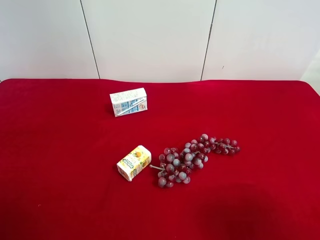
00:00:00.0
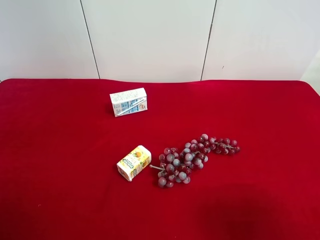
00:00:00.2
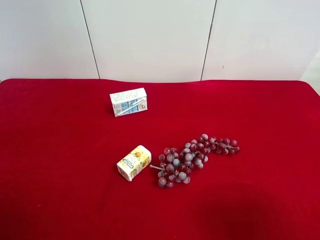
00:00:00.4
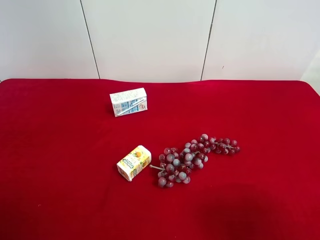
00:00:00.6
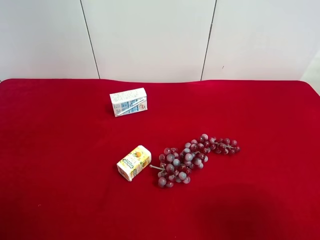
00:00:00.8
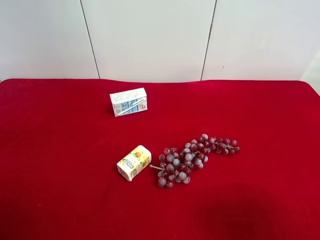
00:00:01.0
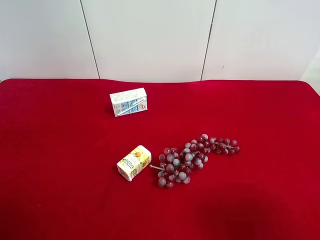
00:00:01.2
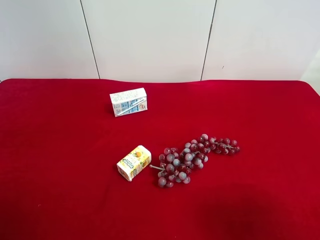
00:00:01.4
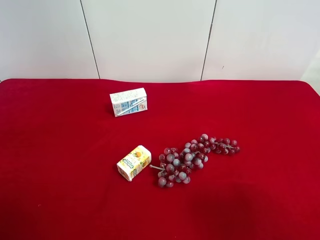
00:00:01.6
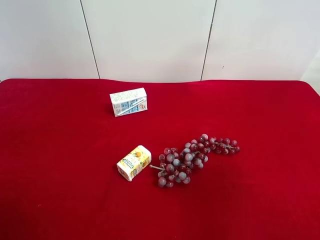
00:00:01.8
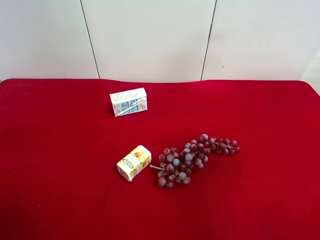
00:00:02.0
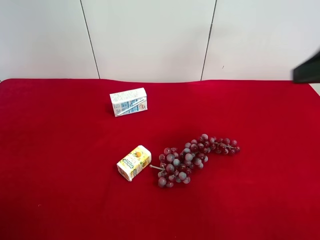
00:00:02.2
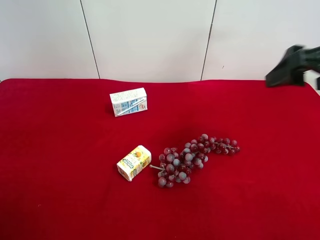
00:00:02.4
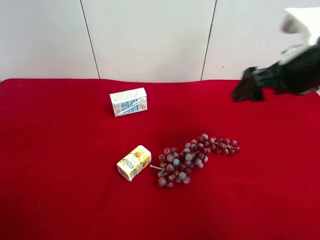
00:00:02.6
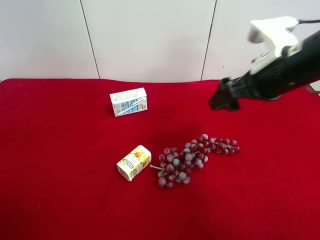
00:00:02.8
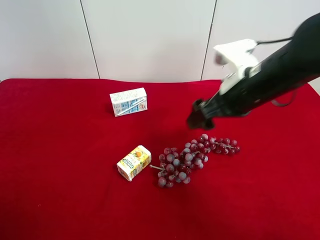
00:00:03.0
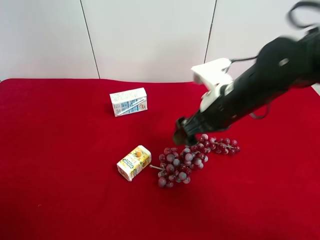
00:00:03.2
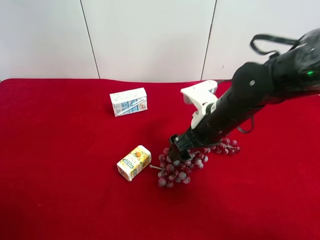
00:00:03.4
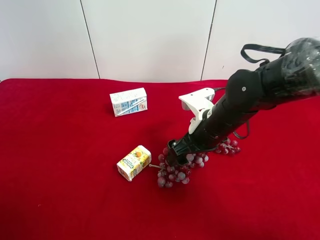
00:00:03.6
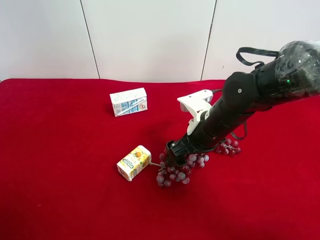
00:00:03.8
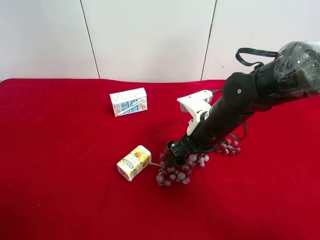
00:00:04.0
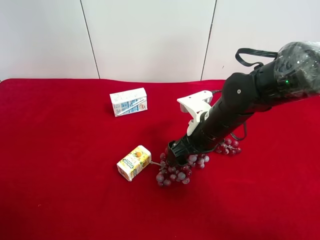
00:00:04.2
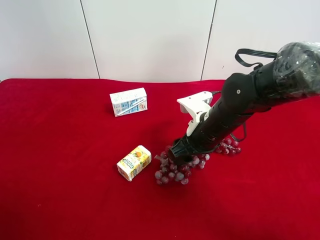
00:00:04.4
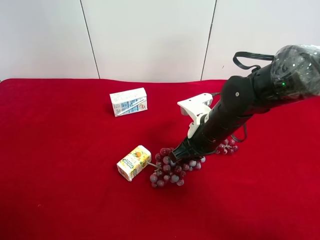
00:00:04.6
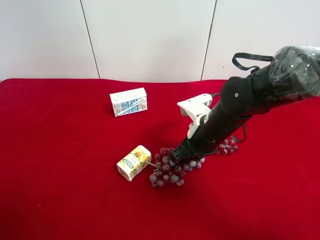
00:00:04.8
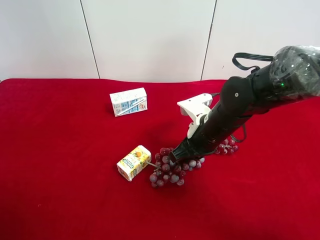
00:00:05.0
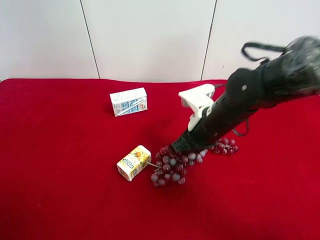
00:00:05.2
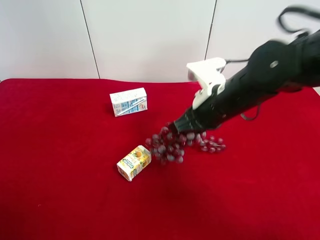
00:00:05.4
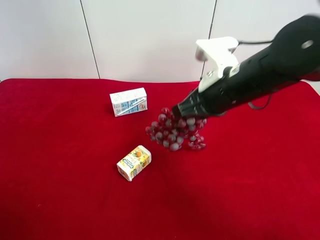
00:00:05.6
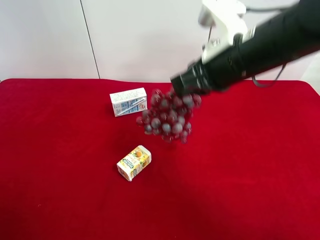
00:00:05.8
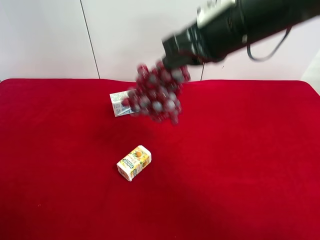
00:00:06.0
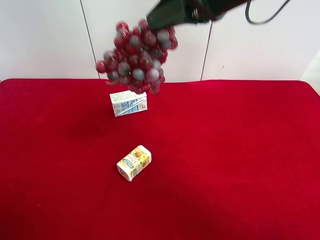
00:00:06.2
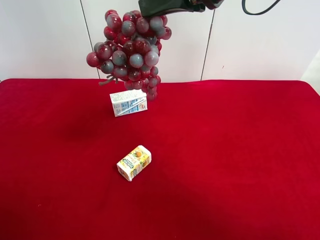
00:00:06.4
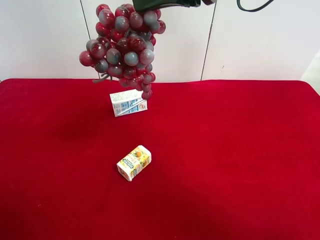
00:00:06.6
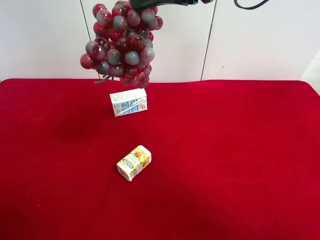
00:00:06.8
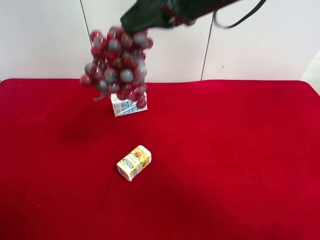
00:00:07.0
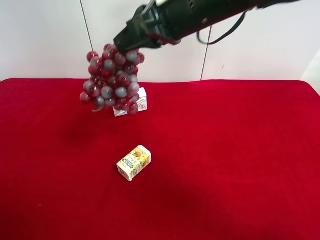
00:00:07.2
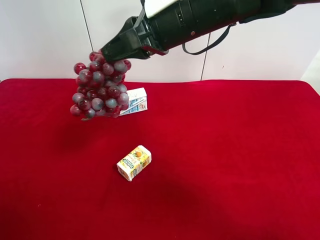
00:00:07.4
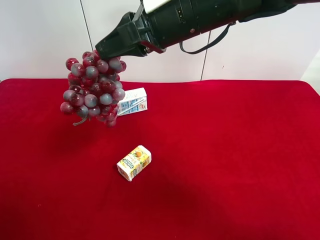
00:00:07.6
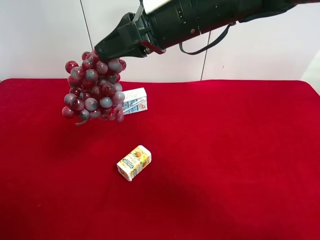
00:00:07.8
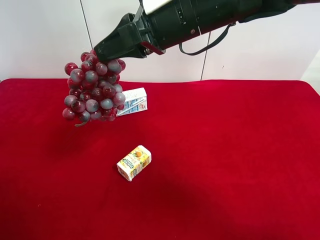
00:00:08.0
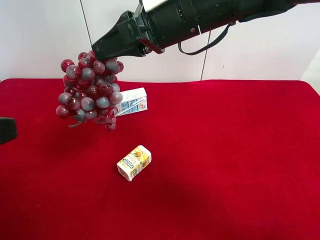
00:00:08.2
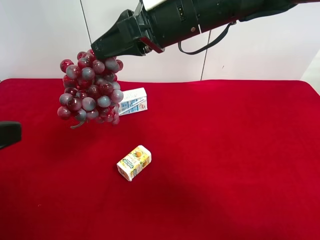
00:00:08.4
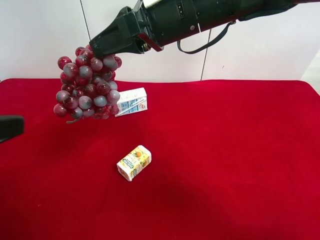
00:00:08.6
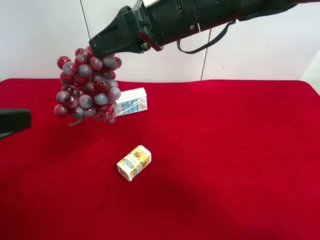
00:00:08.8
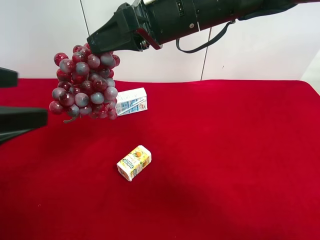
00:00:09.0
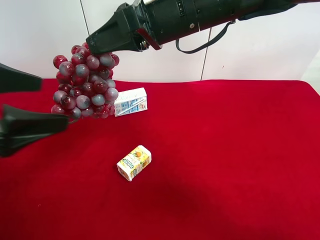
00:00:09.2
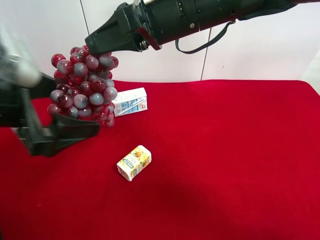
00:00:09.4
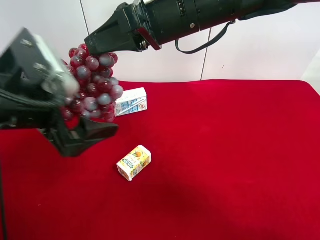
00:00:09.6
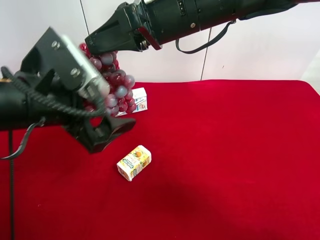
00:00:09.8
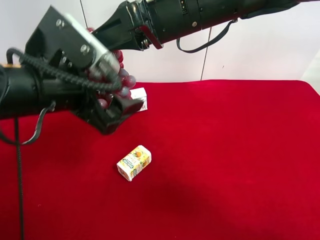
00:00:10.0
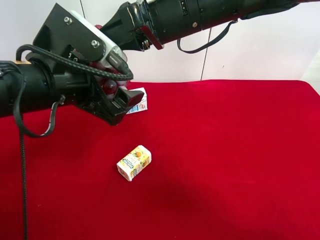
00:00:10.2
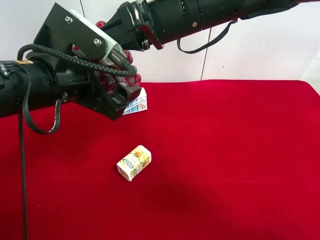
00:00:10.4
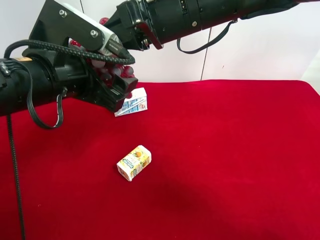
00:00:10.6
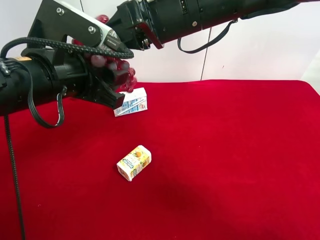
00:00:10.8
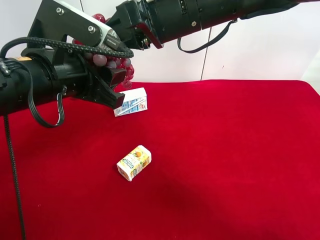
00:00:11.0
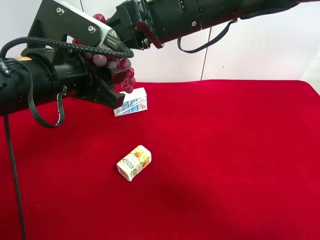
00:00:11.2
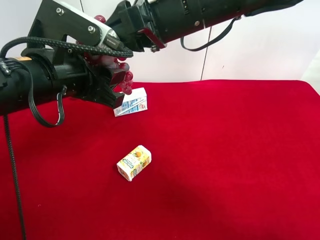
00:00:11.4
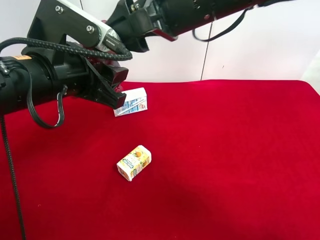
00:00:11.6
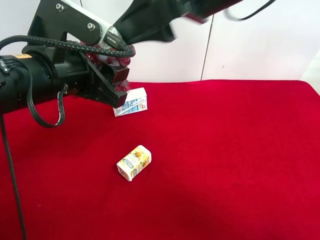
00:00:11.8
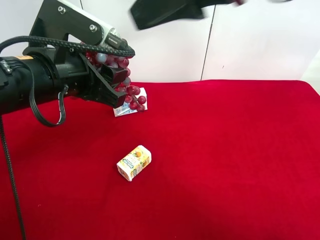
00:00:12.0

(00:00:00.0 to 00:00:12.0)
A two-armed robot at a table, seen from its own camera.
Task of the whole recording: use the right gripper to pick up the item and transfer it from the right gripper to the left gripper.
00:00:01.6 - 00:00:03.0: The right gripper moves forward and to the left, roughly 30 cm.
00:00:03.0 - 00:00:04.4: The right gripper heads downward, covering roughly 10 cm, and closes its fingers.
00:00:04.4 - 00:00:06.0: The right gripper moves upward, some 20 cm, and closes.
00:00:06.0 - 00:00:07.6: The right gripper goes roughly 5 cm to the left.
00:00:07.6 - 00:00:09.0: The left gripper travels forward and to the right by about 15 cm.
00:00:09.0 - 00:00:10.4: The left gripper shifts roughly 15 cm to the right and forward.
00:00:10.4 - 00:00:12.0: The left gripper closes its fingers. Meanwhile the right gripper travels upward, to the right and backward by roughly 15 cm, and opens.

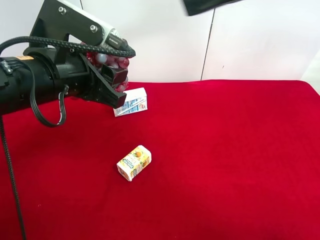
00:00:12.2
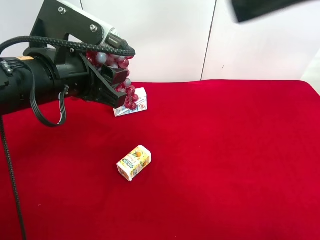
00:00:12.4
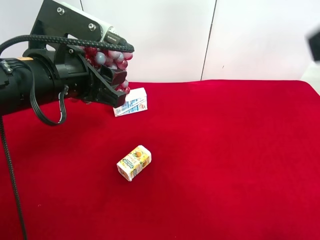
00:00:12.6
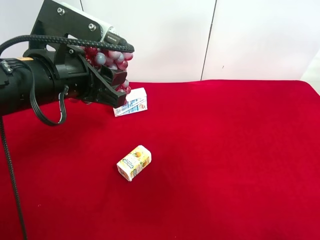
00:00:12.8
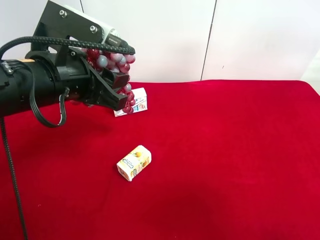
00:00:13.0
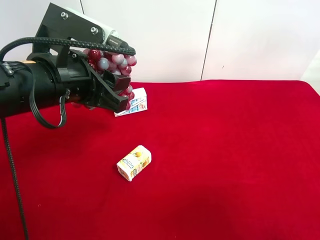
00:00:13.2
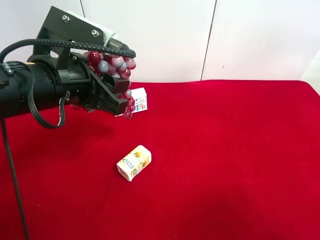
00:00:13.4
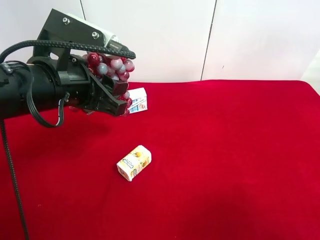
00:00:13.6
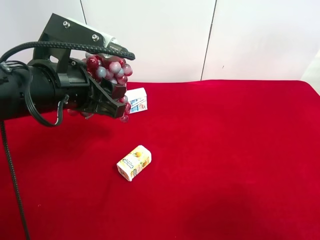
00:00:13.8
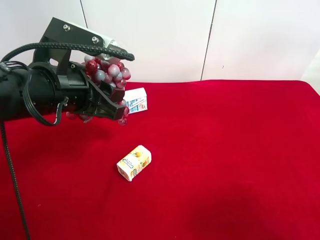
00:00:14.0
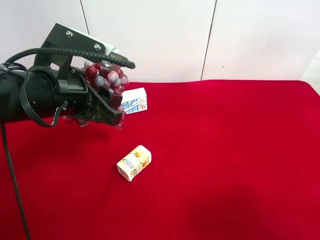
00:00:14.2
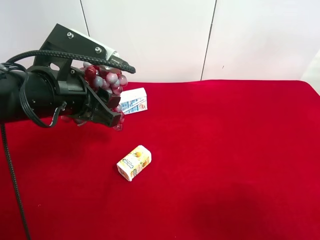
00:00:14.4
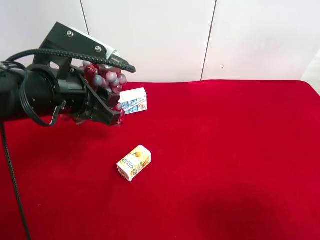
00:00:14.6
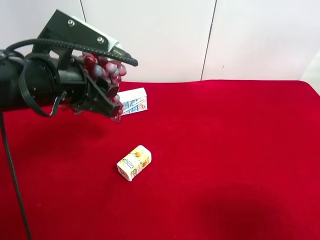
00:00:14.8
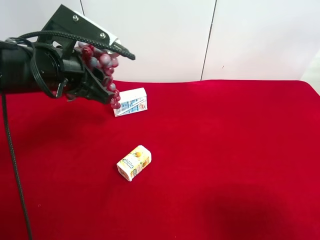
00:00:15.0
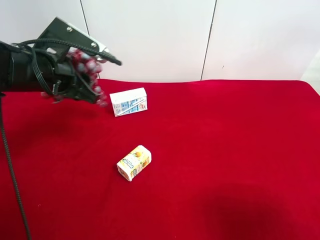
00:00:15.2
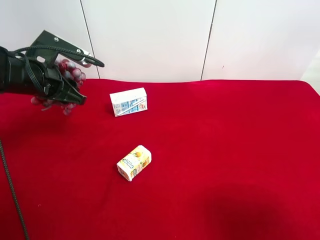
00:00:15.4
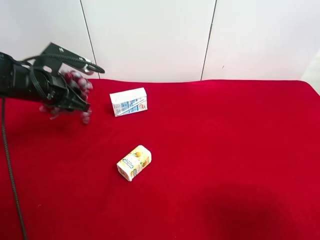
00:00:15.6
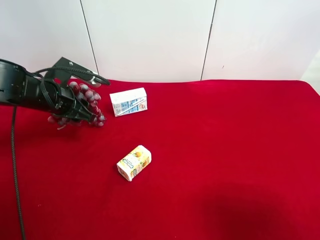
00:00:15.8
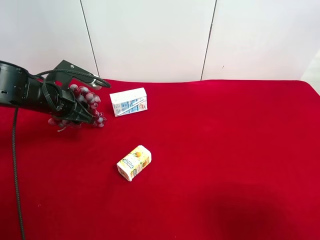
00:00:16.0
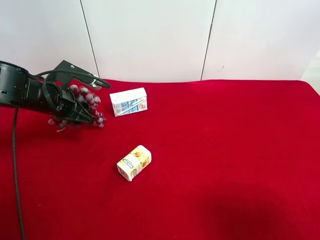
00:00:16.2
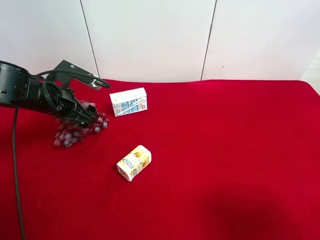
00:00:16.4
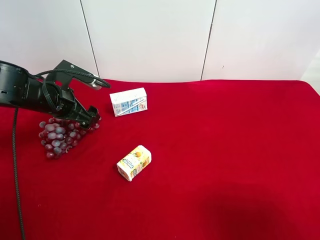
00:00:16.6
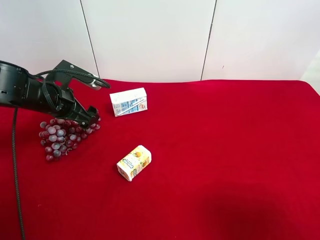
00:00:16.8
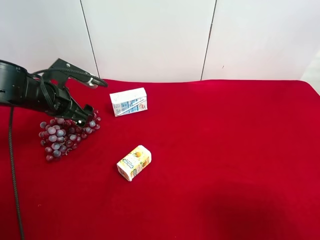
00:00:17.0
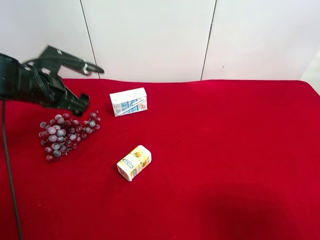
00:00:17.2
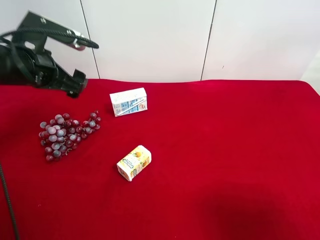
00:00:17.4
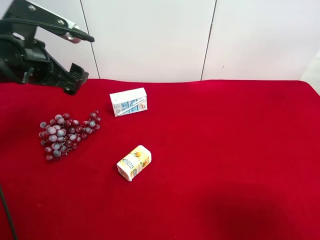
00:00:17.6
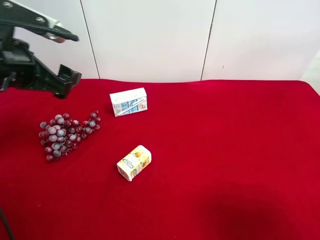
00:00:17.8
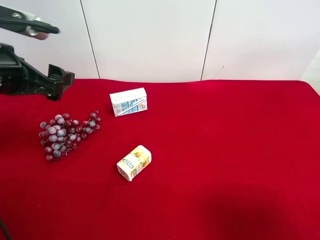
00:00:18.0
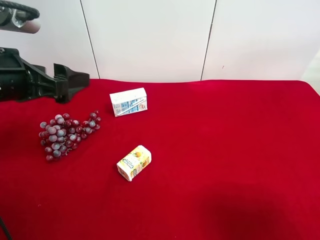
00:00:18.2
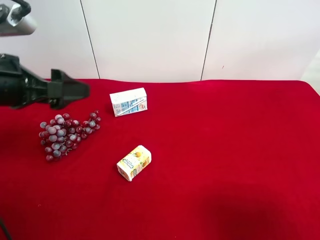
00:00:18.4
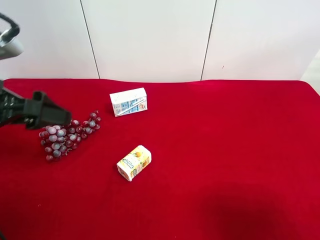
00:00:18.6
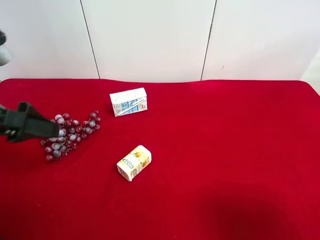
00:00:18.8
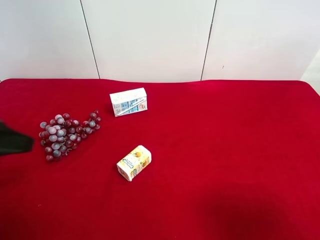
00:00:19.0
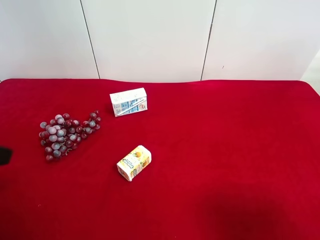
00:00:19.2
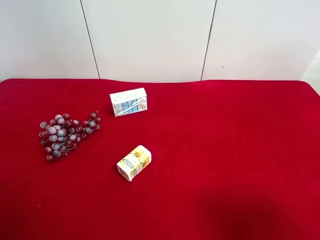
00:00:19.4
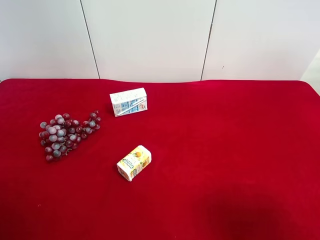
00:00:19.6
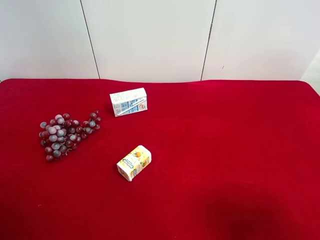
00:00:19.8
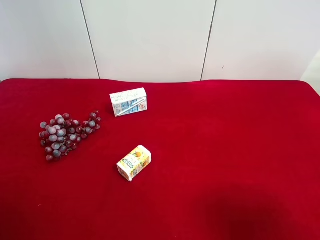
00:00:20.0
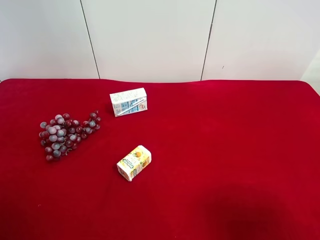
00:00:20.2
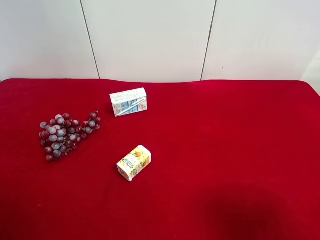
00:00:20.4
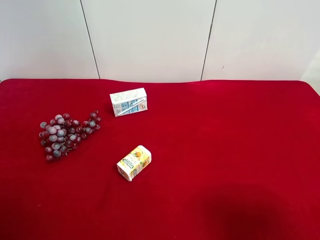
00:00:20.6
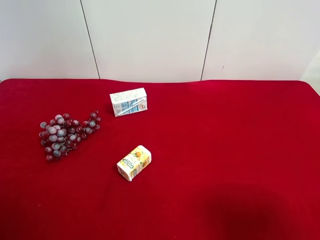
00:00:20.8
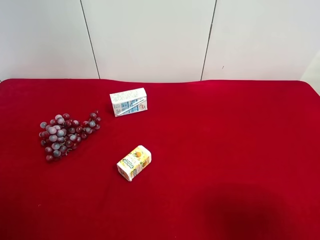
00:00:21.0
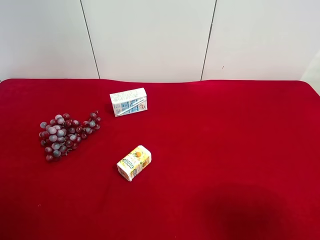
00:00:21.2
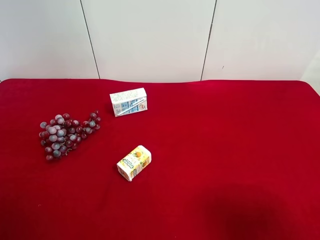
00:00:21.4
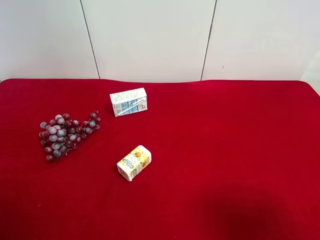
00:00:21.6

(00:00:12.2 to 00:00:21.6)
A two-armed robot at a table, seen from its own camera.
Task of the whole recording: use the right gripper to pick up the item and transfer it from the right gripper to the left gripper.
00:00:12.2 - 00:00:13.8: The right gripper goes roughly 25 cm backward, downward and to the right.
00:00:13.8 - 00:00:15.4: The left gripper goes some 15 cm forward, to the left and downward.
00:00:15.4 - 00:00:17.0: The left gripper opens.
00:00:17.0 - 00:00:18.4: The left gripper heads backward and upward, covering roughly 15 cm.
00:00:18.4 - 00:00:20.0: The left gripper goes about 15 cm backward.
